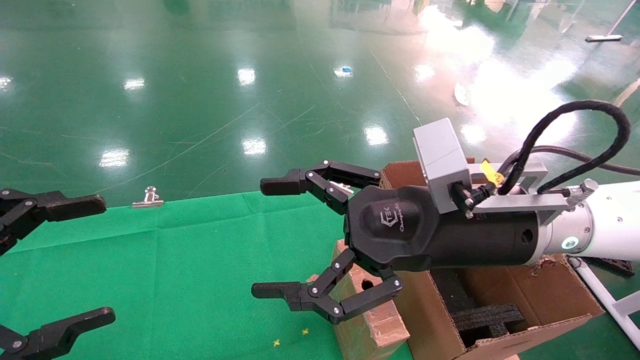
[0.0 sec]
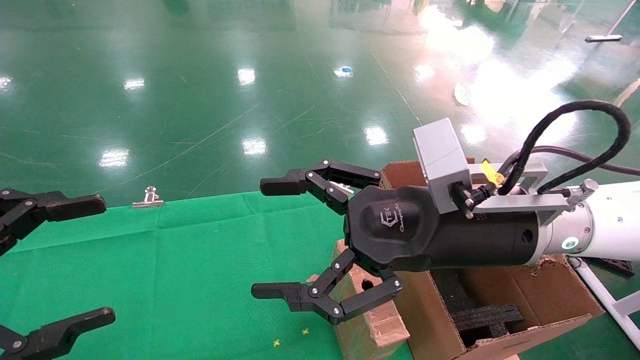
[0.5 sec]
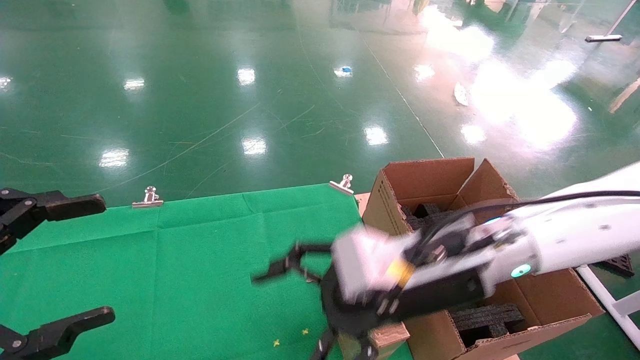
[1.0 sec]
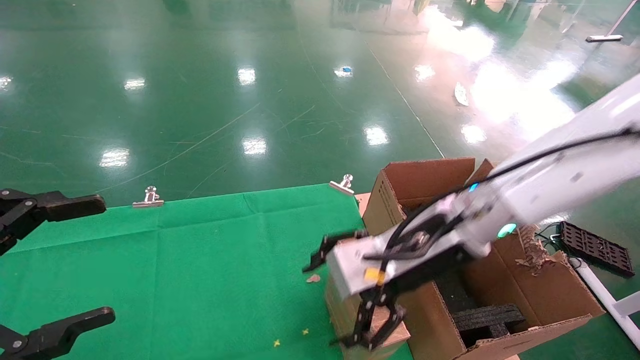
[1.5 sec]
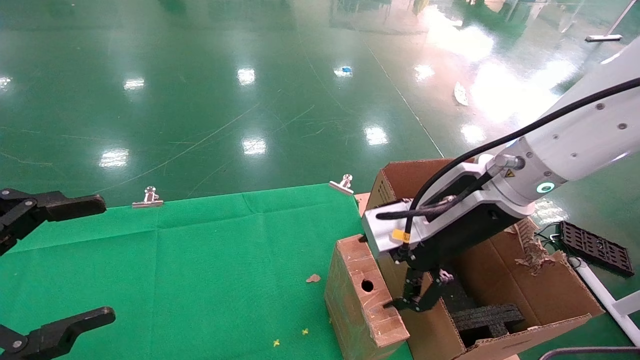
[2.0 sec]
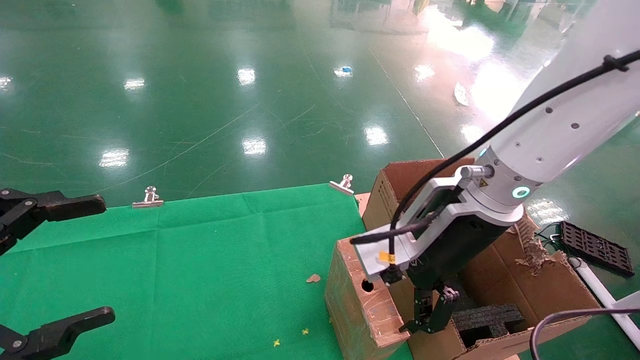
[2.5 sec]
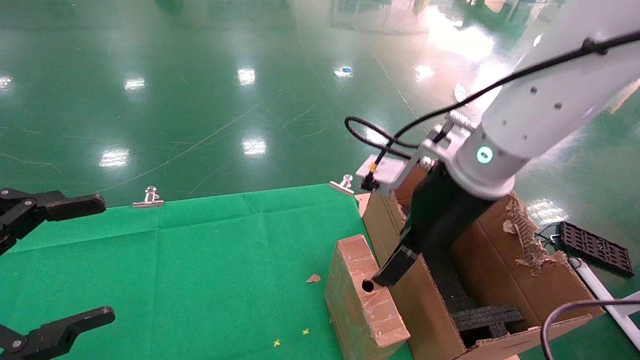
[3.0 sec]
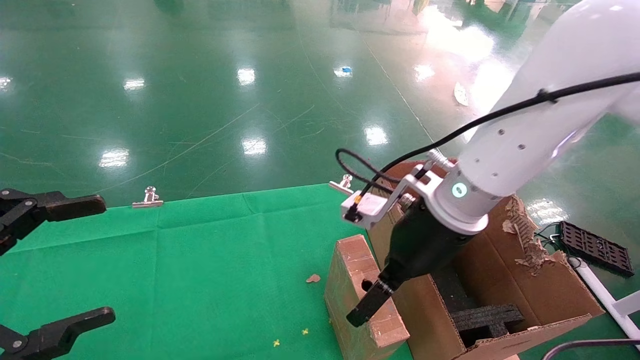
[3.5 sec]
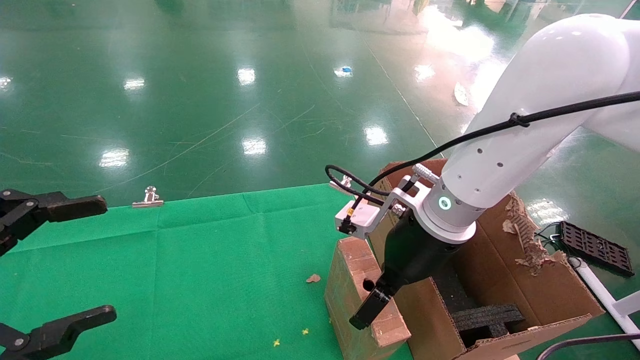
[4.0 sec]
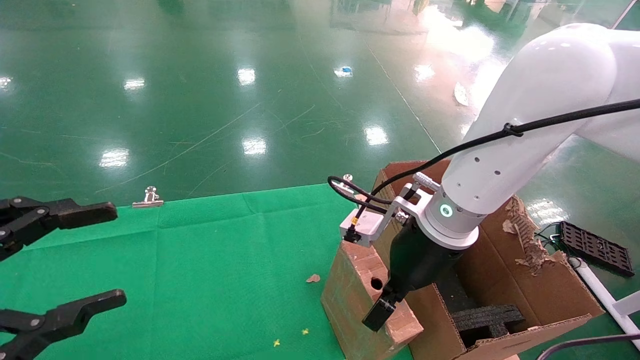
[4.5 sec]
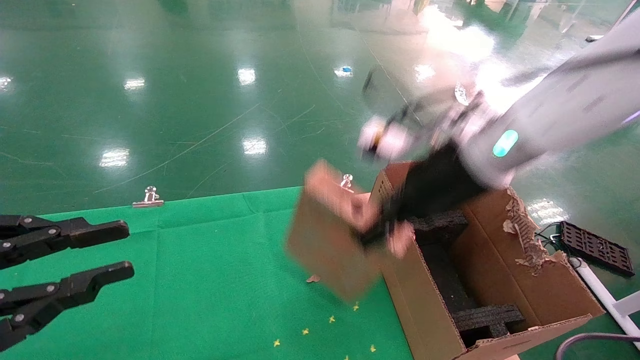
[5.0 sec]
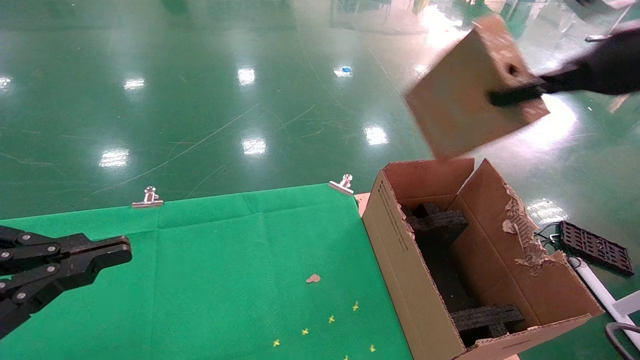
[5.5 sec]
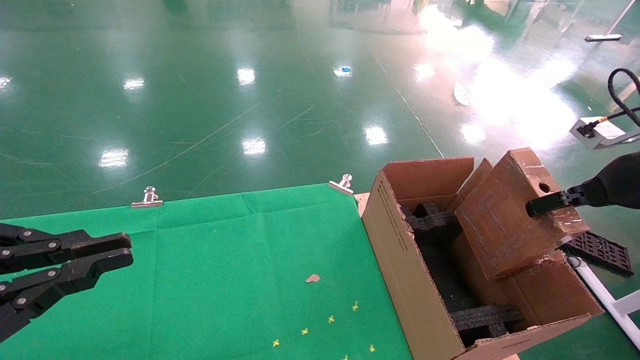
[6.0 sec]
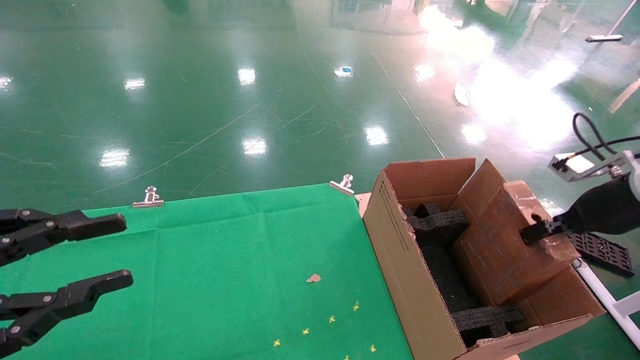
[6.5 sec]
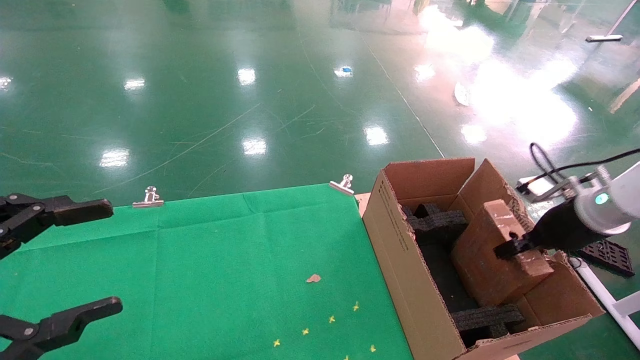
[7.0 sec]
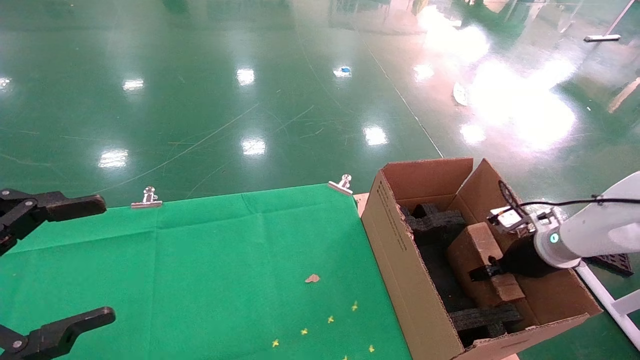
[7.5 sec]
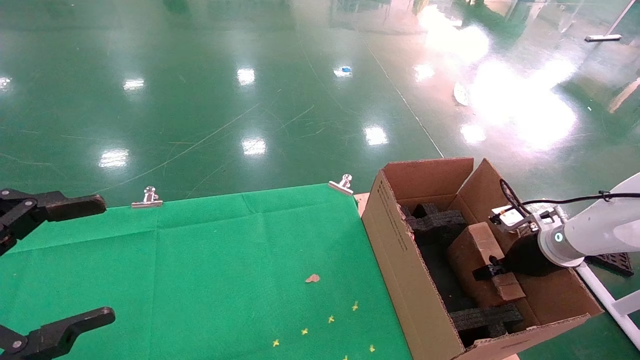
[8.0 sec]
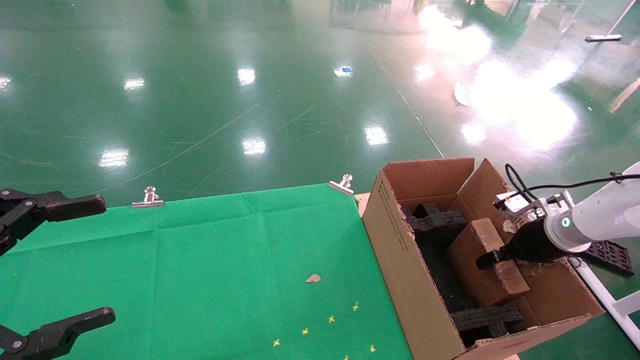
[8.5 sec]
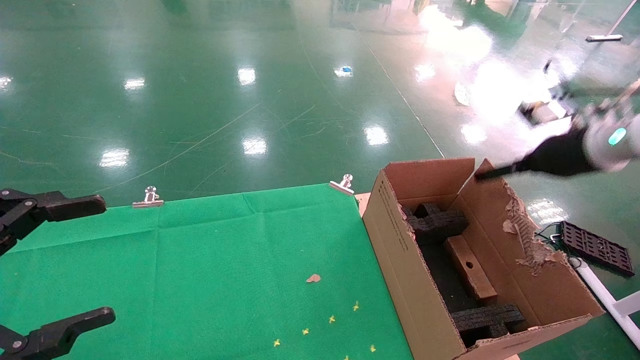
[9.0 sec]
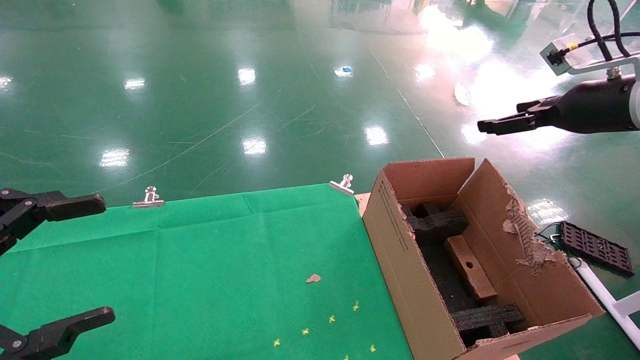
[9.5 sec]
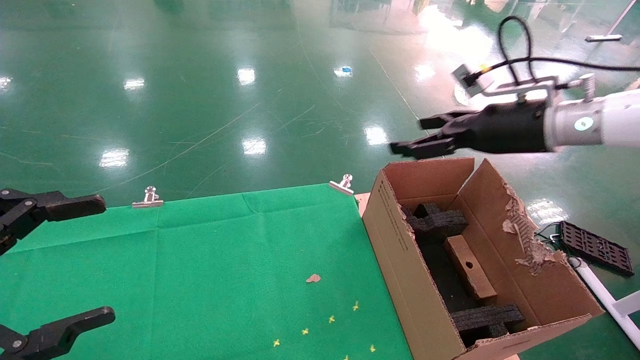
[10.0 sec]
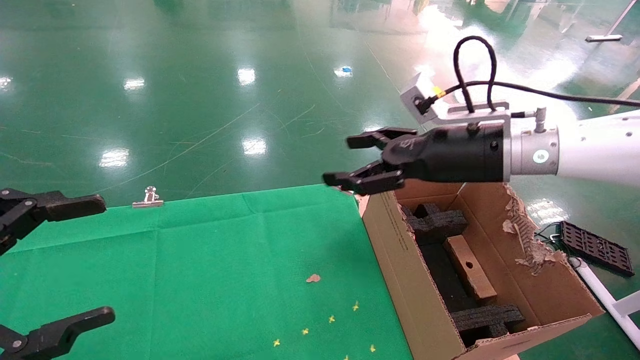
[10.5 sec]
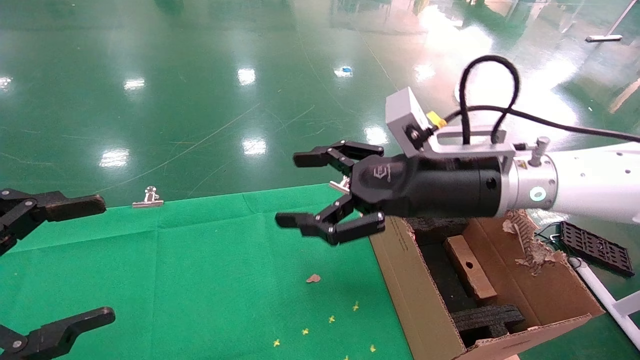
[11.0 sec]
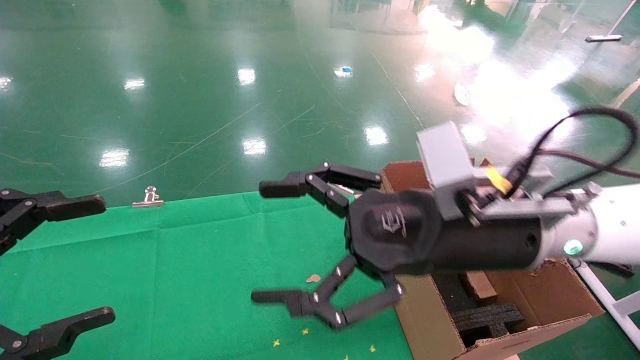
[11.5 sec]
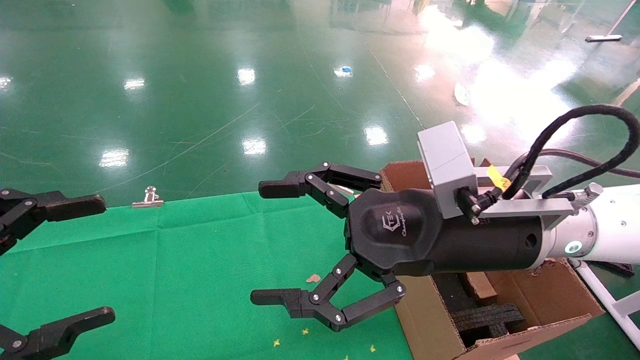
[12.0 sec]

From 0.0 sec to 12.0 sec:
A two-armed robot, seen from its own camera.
Task of the whole recording: using a robotic arm to pick up a cardboard box and palace it the carton.
Step, from 1.0 sec to 4.5 sec: Pick up the mouse and the power cord paper box.
Step, from 5.0 sec to 8.5 sec: Place the mouse and the power cord paper box into the container.
From 2.0 sec to 4.0 sec: The right gripper moves some 5 cm.
From 4.0 sec to 6.0 sec: The left gripper closes up, while the right gripper is displaced to the right by about 30 cm, and closes up.
From 6.0 sec to 8.0 sec: The right gripper travels downward and forward by some 20 cm. Meanwhile the left gripper opens up.
From 8.0 sec to 10.0 sec: The right gripper goes some 25 cm upward and to the left, and opens up.
From 10.0 sec to 12.0 sec: The right gripper is displaced to the left and backward by approximately 20 cm.

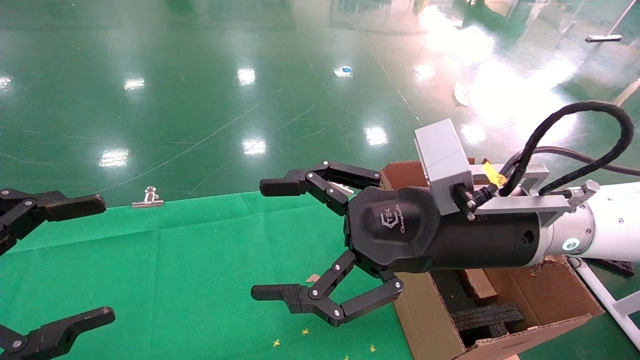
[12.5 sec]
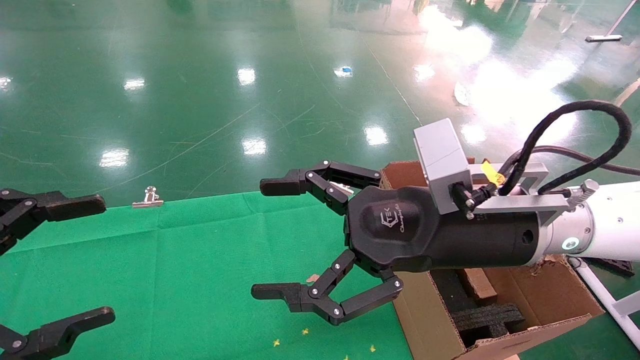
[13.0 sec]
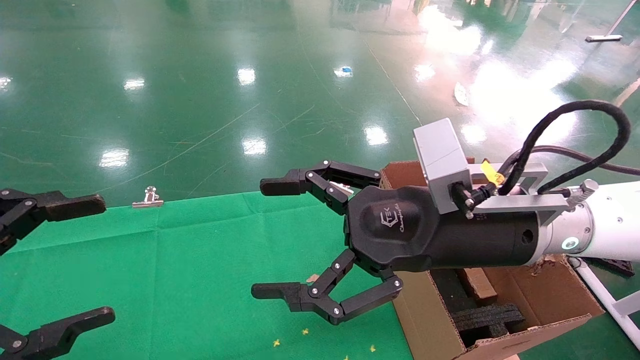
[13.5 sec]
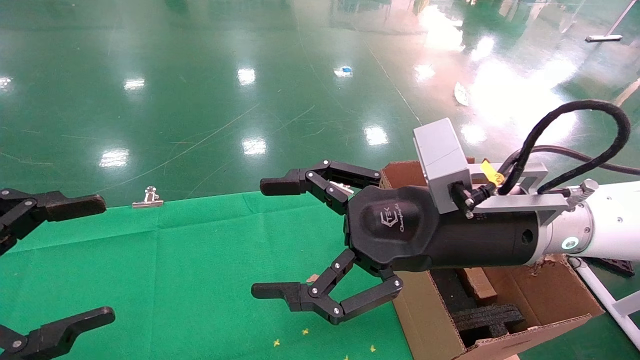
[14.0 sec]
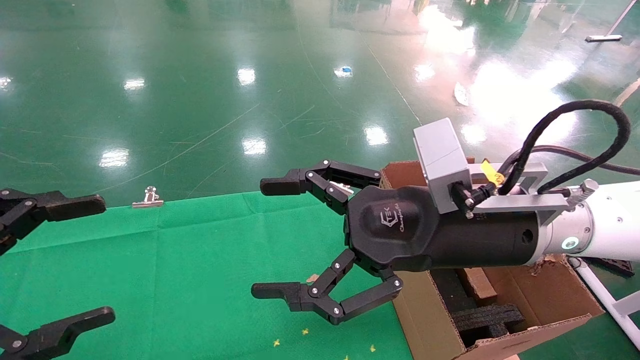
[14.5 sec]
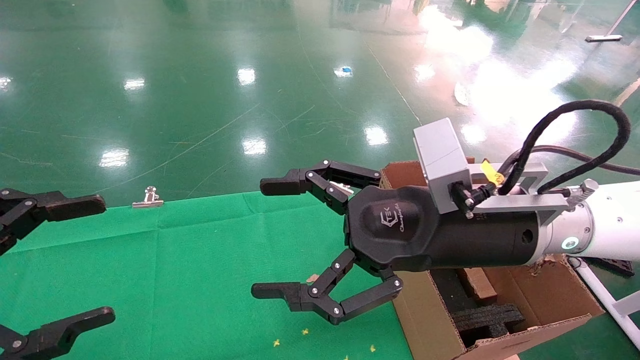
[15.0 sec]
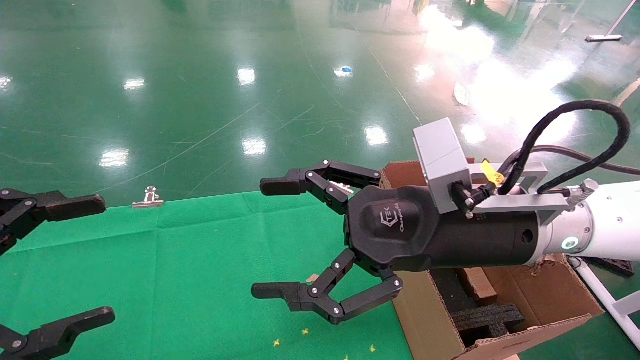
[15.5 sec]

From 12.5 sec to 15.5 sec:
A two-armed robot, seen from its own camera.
Task of the whole recording: using a robotic arm to pick up a cardboard box and palace it the carton.
From 12.5 sec to 15.5 sec: Both grippers stay about where they are.
